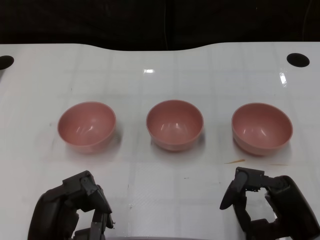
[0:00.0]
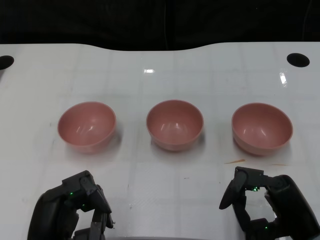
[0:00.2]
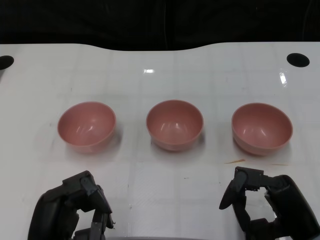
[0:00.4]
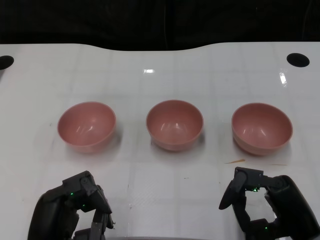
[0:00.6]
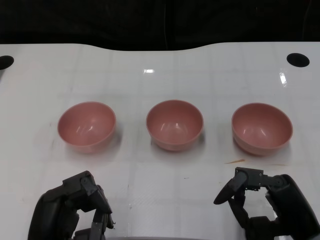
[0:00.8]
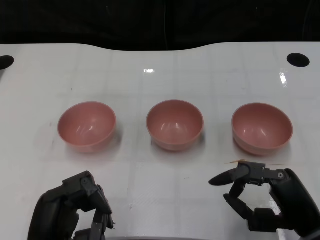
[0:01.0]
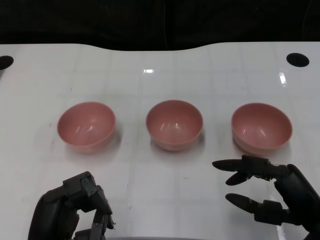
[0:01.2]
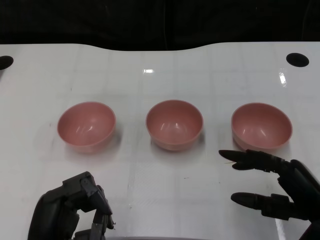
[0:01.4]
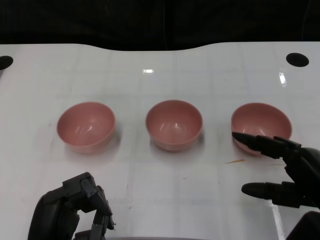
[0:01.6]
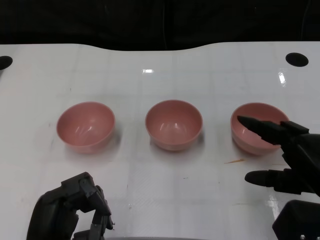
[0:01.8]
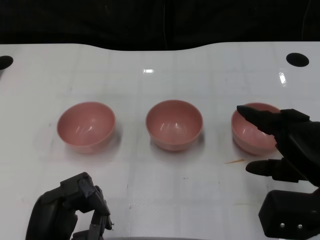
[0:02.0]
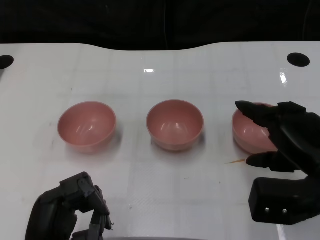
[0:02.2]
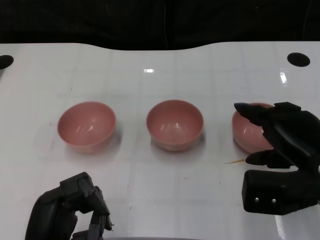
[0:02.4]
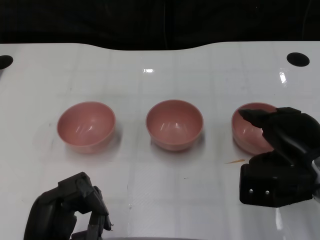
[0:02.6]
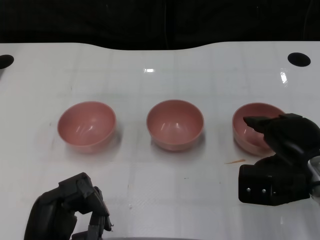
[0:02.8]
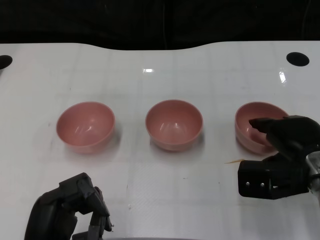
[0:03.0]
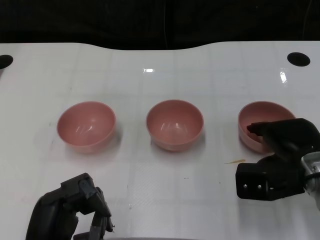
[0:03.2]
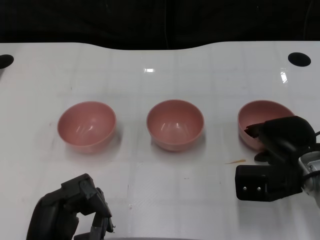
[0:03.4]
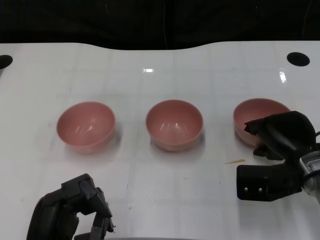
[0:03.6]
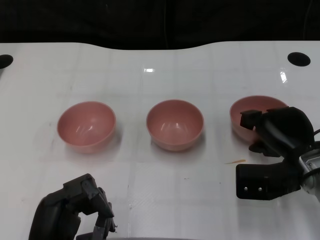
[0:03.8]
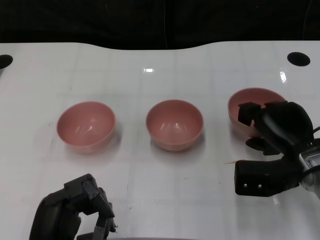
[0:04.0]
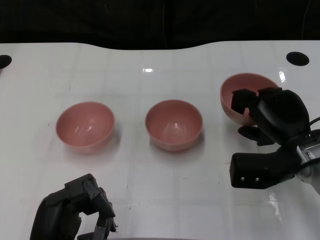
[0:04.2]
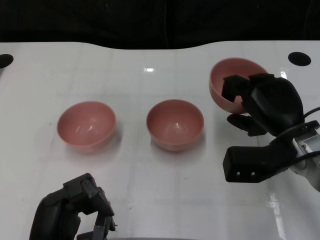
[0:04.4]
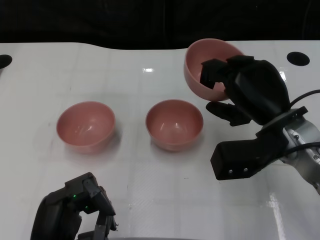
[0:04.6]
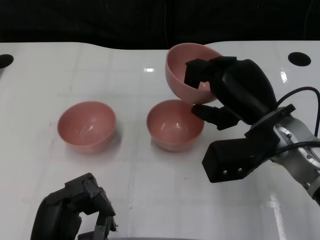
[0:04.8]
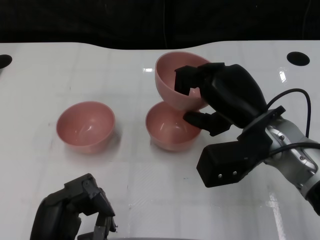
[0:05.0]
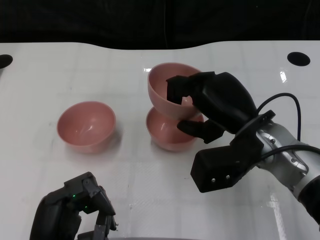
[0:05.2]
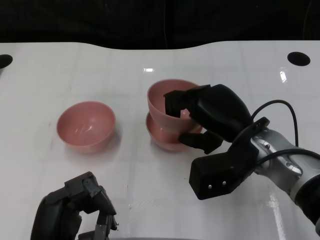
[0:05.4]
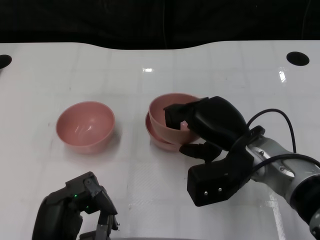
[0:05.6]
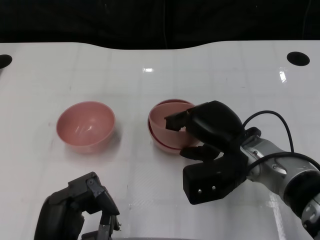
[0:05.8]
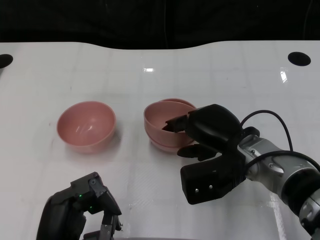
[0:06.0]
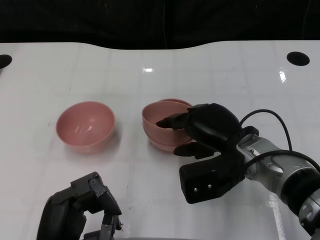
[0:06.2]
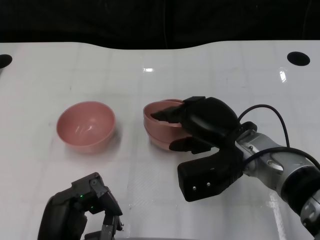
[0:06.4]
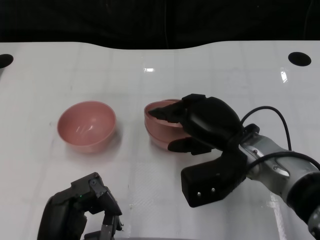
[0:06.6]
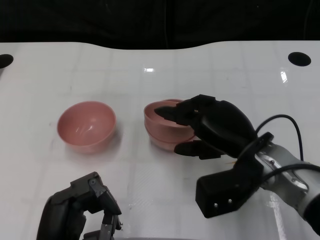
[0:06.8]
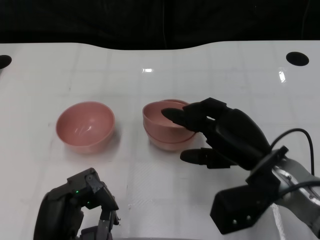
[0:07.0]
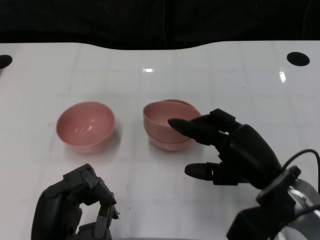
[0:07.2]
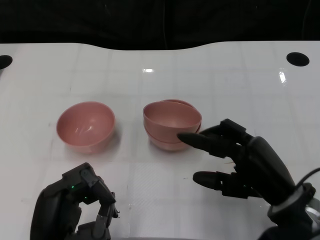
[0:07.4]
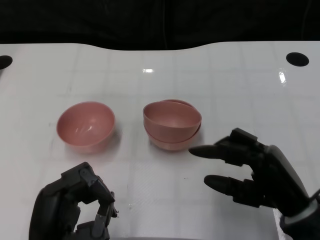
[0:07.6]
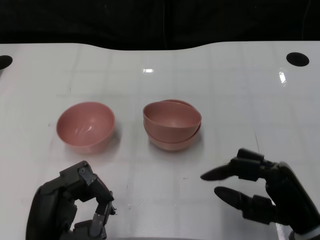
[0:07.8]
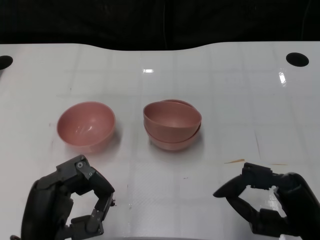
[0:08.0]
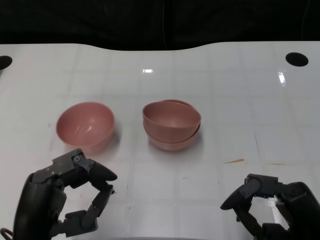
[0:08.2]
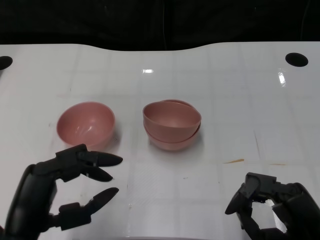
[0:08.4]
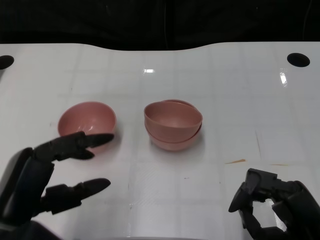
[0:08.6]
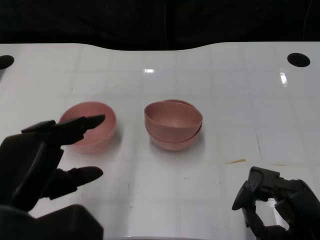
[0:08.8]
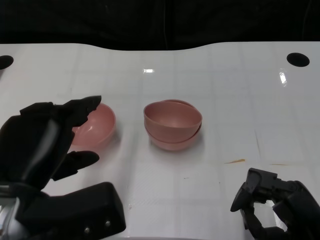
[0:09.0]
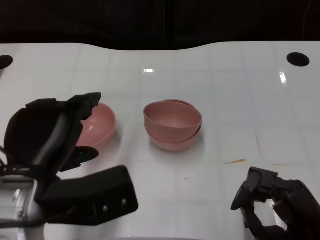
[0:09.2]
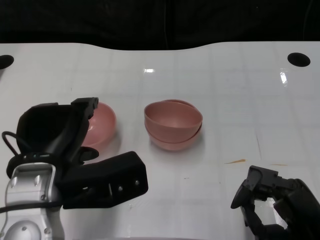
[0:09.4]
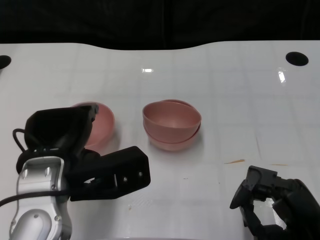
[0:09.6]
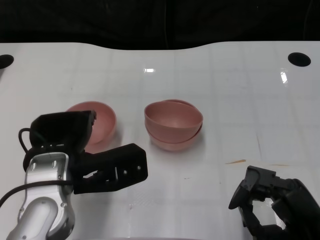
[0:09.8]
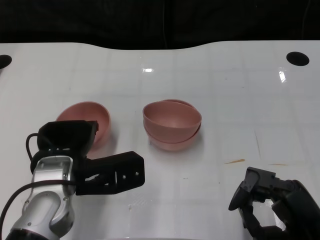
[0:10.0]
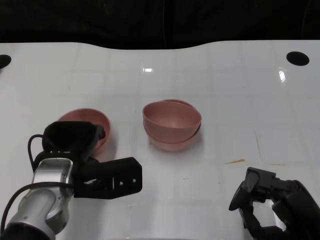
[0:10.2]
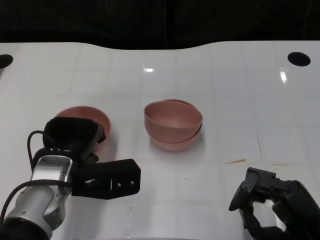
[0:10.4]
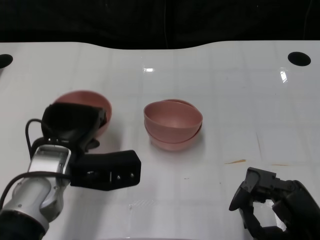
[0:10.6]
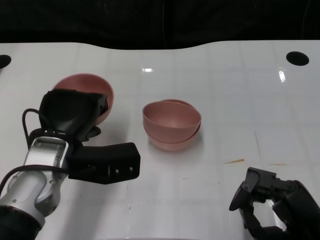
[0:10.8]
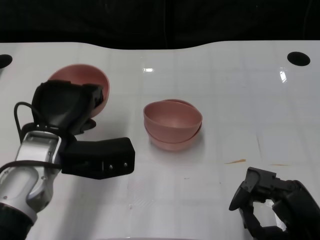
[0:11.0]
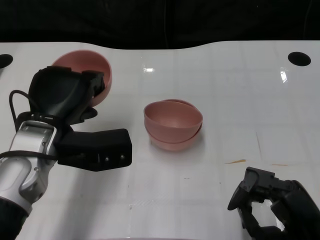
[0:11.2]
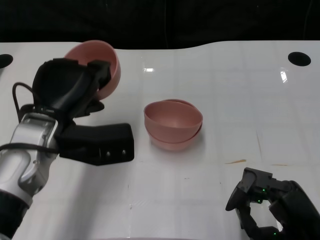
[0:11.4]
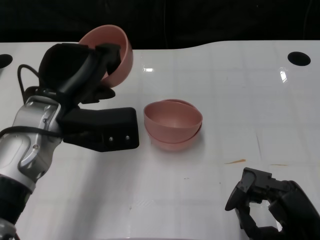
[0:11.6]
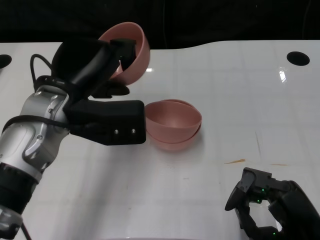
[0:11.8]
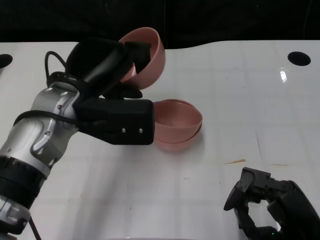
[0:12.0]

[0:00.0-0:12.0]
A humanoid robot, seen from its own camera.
Task of the whole recording: Pick up the bowl on one side of the table and place it on top of the middle bowl, then pick up the bowl on the other side of the table and place it on top of the middle bowls.
Step, 0:00.8 to 0:03.8: Grasp the bowl on the right with the right gripper.
Step, 0:04.0 to 0:06.8: Place the bowl on the right onto the bowl in the middle with right gripper.
Step, 0:07.2 to 0:10.6: Grasp the bowl on the left with the left gripper.
0:01.6 to 0:03.0: The right hand heads forward, covering about 10 cm.
0:04.4 to 0:06.0: The right hand shifts some 5 cm to the left.
0:06.0 to 0:07.6: The right hand travels backward and to the right by roughly 10 cm.
0:07.6 to 0:09.0: The left hand heads upward, covering about 10 cm. Meanwhile the right hand shifts by some 5 cm.
0:09.0 to 0:10.4: The left hand heads forward and downward, covering roughly 15 cm.
0:10.4 to 0:12.0: The left hand shifts about 10 cm upward.

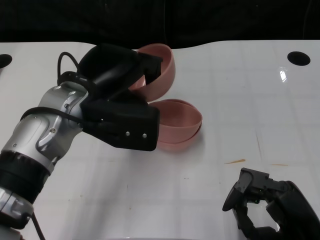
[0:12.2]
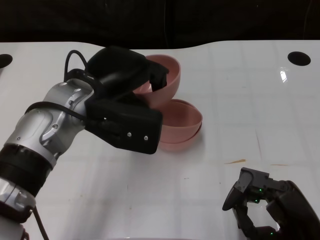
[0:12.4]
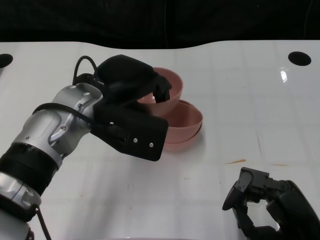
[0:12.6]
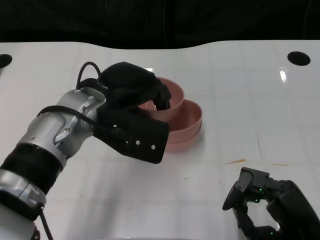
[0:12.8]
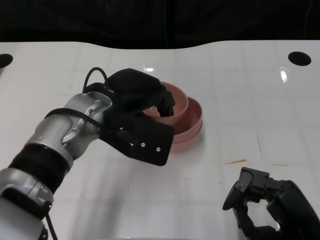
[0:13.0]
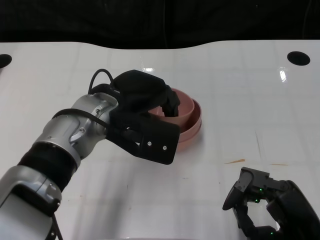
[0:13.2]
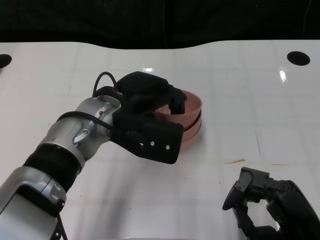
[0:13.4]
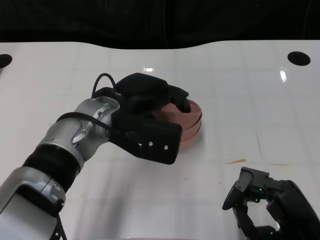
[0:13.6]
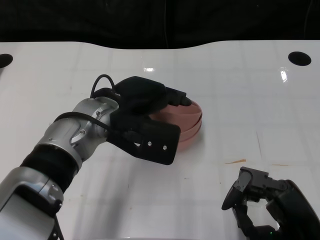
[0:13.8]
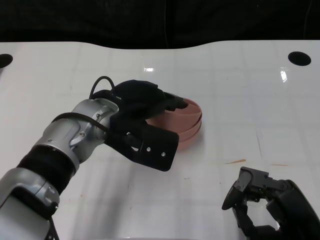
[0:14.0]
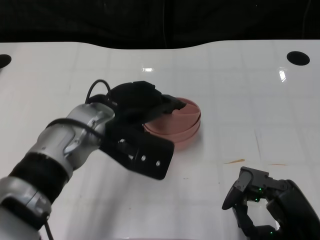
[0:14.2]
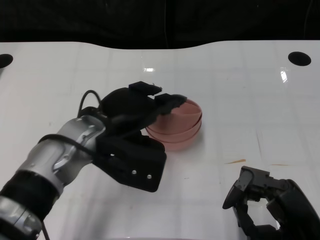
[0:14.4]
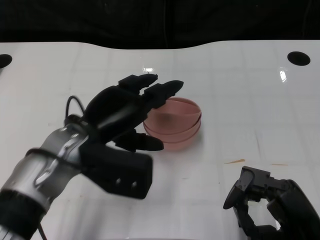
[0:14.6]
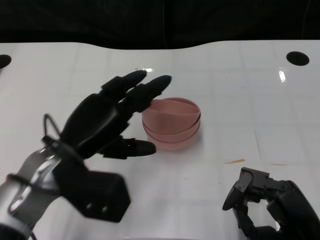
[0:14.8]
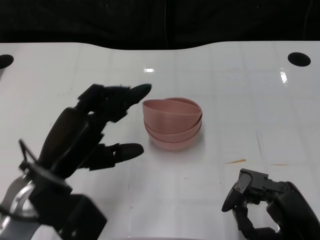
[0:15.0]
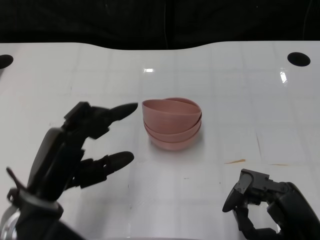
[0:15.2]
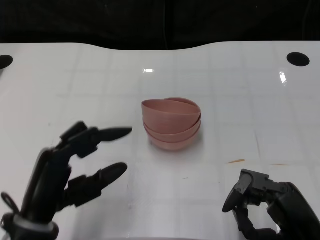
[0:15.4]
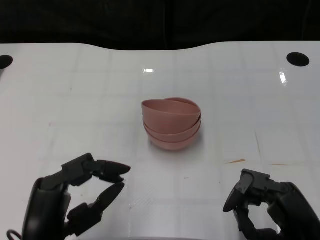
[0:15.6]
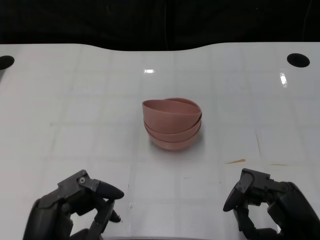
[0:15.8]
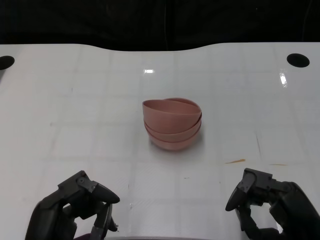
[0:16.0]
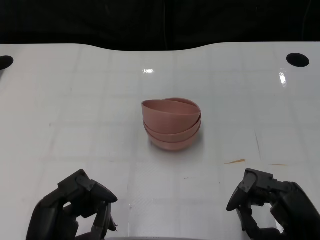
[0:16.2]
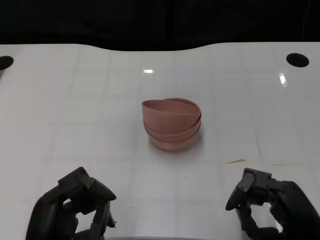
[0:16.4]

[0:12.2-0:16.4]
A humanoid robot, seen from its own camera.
Task of the whole recording: Pick up the bowl on one side of the table and place it on top of the middle bowl, then pick up the bowl on the other side of the table and place it on top of the middle bowls.
Step, 0:12.2 to 0:15.0: Place the bowl on the left onto the bowl in the middle with left gripper.
0:12.2 to 0:13.6: The left hand shifts by some 5 cm.
0:13.6 to 0:15.0: The left hand heads to the left and backward, covering some 10 cm.
0:15.0 to 0:16.4: The left hand travels backward and downward by about 10 cm.

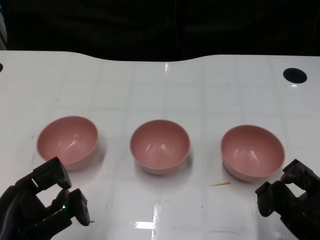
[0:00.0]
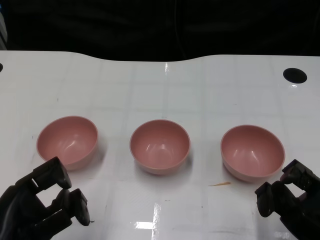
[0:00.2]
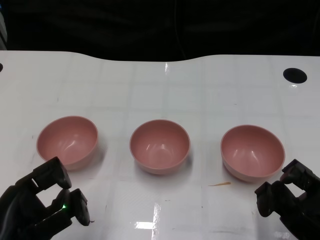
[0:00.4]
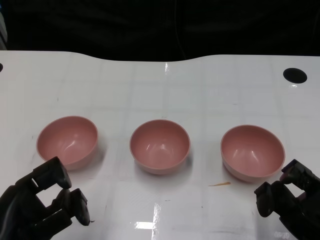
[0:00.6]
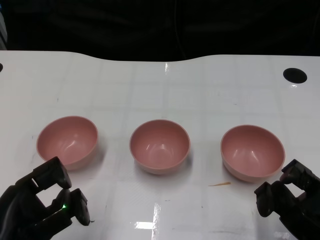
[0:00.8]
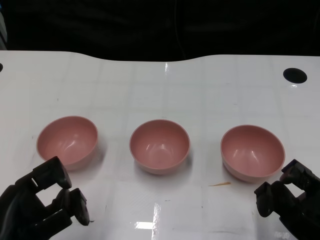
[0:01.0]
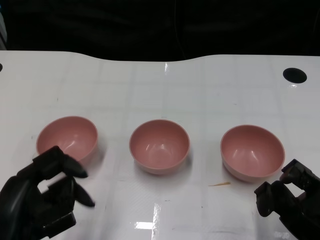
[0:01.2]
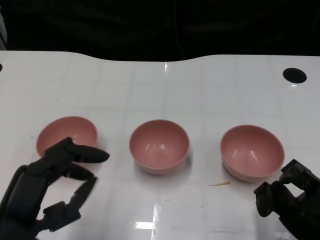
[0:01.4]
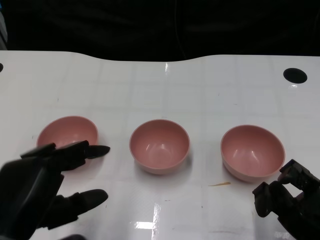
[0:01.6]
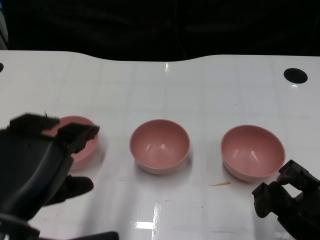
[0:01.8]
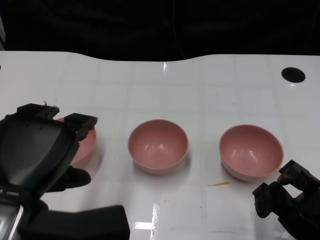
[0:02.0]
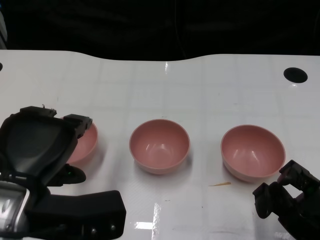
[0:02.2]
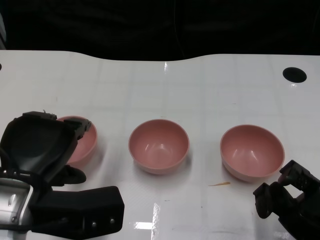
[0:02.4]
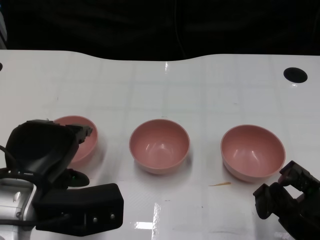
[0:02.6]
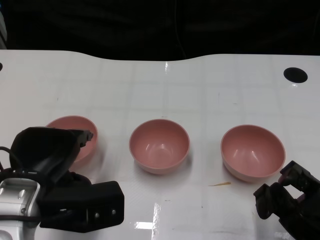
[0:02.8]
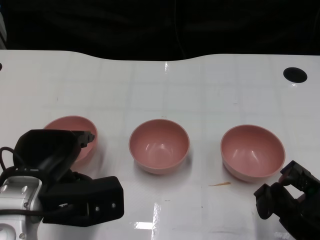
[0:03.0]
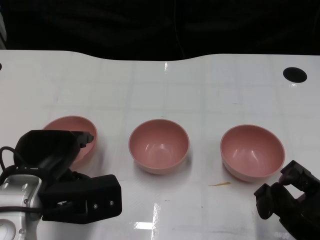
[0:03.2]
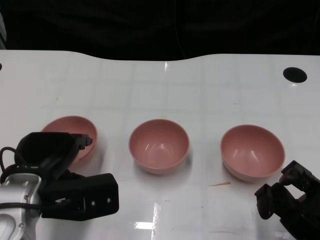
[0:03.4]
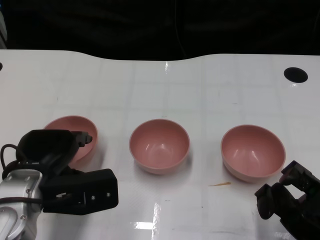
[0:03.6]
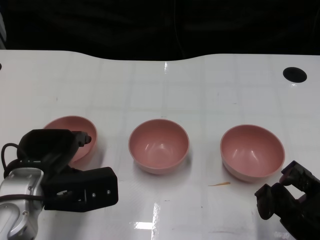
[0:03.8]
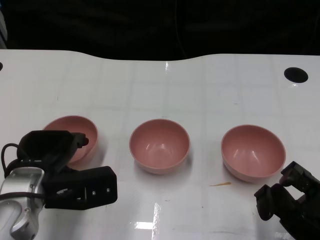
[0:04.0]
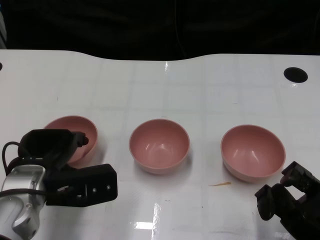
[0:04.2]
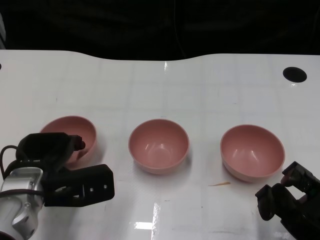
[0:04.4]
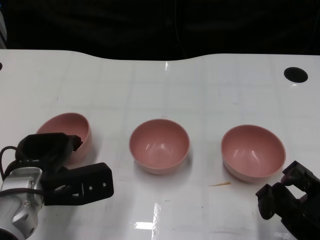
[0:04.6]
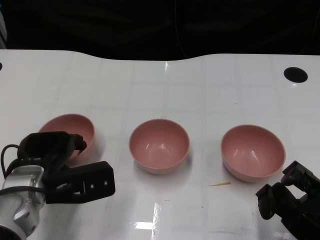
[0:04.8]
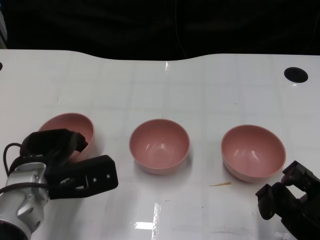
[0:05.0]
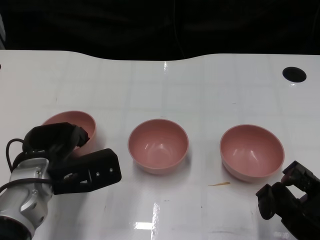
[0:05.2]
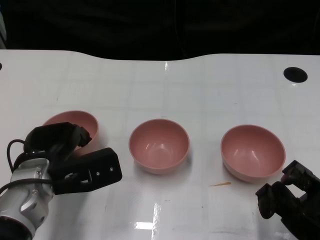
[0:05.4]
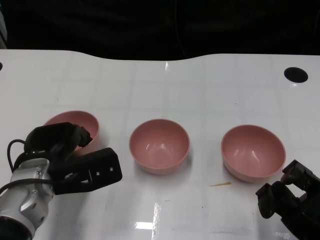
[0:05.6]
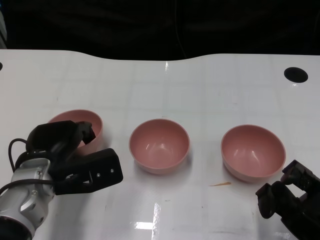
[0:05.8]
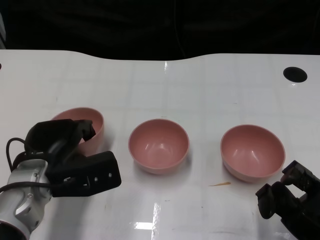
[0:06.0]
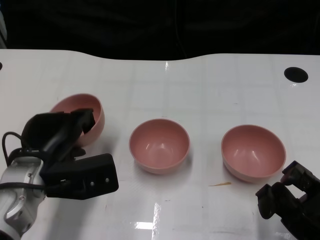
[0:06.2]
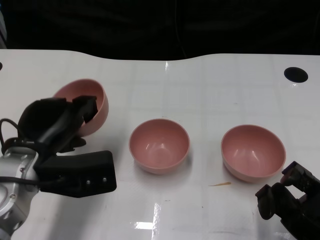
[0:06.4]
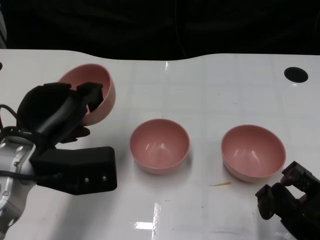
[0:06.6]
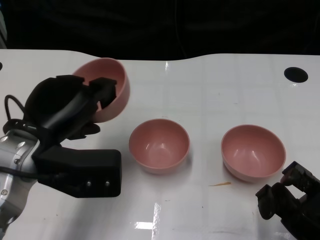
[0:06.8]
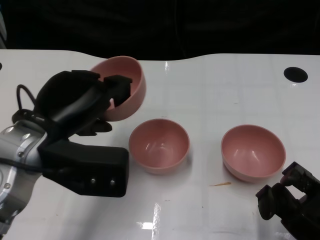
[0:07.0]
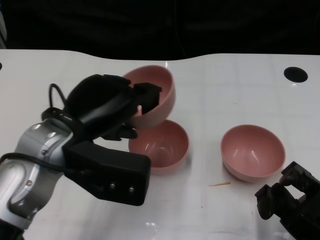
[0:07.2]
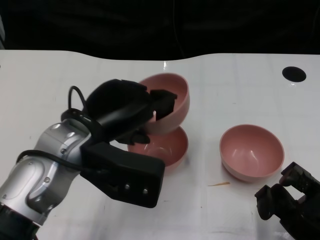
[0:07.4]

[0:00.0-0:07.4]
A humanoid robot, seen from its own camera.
Task of the whole recording: Pick up the bowl on one side of the table and place it on top of the middle bowl, then pick up the bowl on the other side of the table and place it on top of the middle bowls.
Step, 0:01.2 to 0:06.0: Grasp the bowl on the left with the left gripper.
0:01.4 to 0:03.0: The left hand goes approximately 10 cm forward.
0:03.0 to 0:04.4: The left hand ends up about 5 cm from where it was.
0:04.4 to 0:06.0: There are only small adjustments of the hands.
0:06.0 to 0:07.4: The left hand goes approximately 10 cm upward and to the right.
